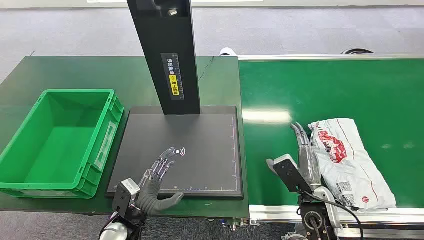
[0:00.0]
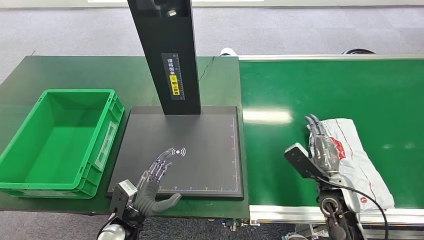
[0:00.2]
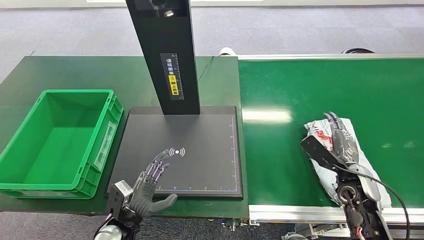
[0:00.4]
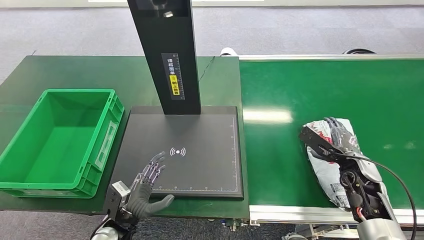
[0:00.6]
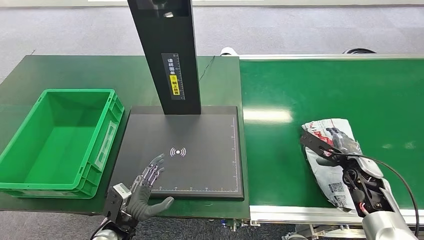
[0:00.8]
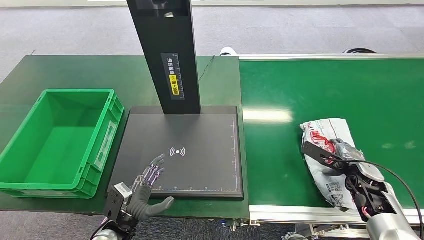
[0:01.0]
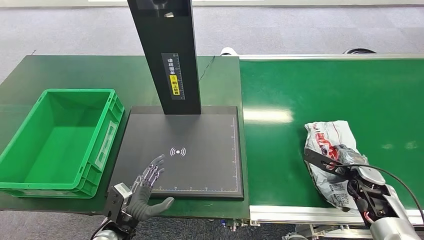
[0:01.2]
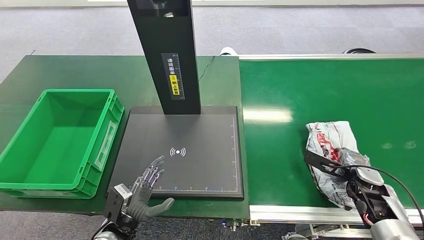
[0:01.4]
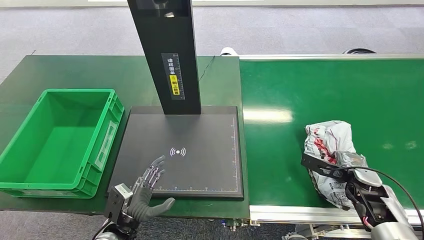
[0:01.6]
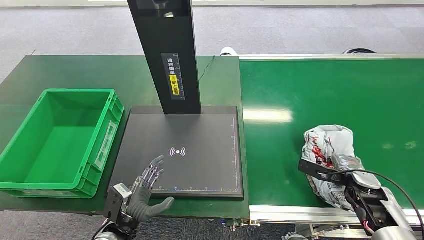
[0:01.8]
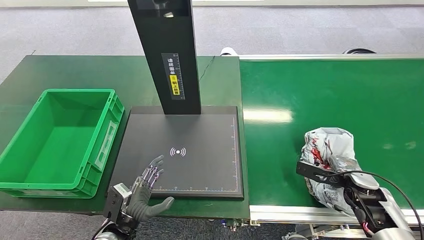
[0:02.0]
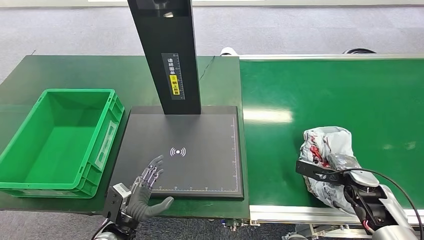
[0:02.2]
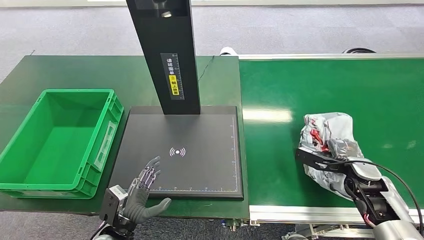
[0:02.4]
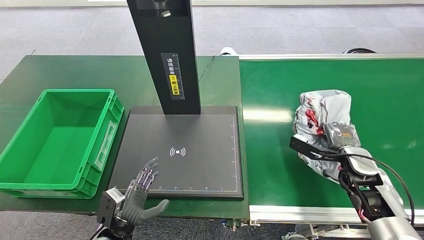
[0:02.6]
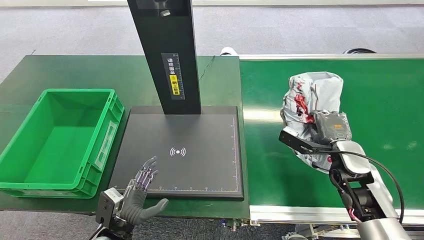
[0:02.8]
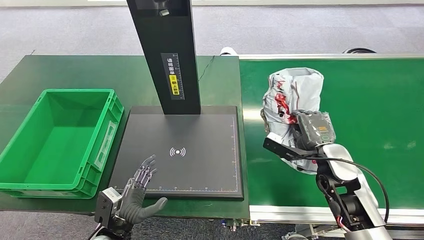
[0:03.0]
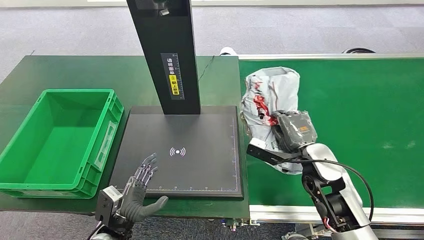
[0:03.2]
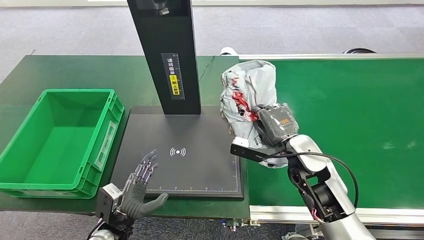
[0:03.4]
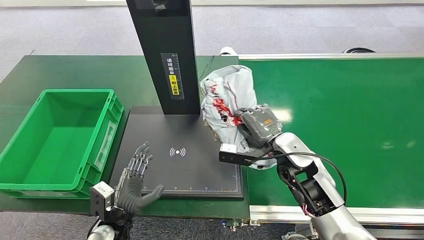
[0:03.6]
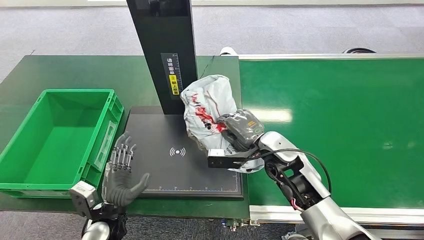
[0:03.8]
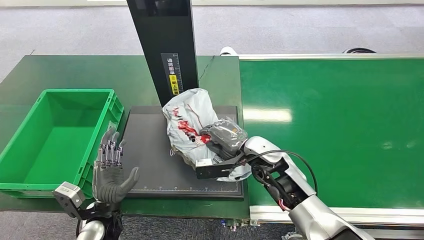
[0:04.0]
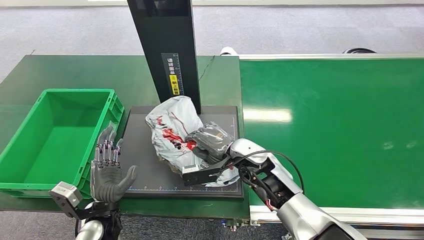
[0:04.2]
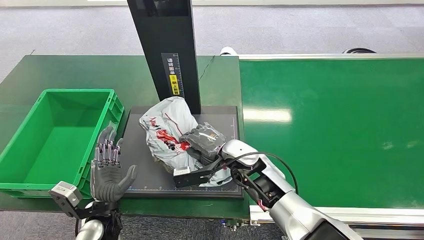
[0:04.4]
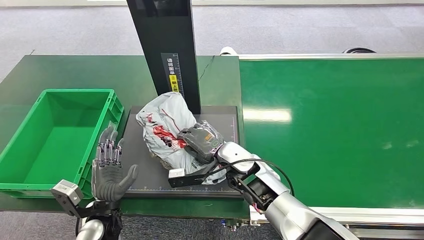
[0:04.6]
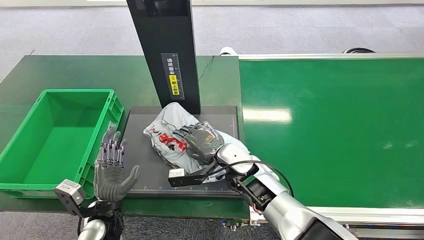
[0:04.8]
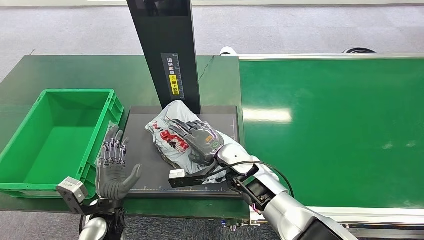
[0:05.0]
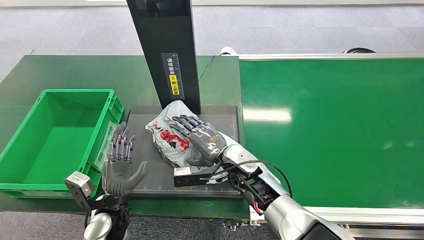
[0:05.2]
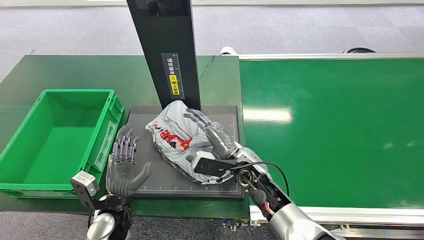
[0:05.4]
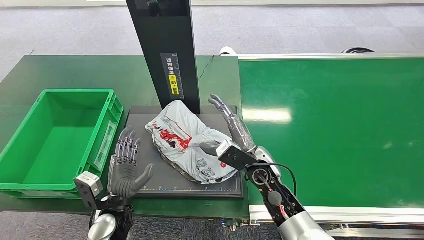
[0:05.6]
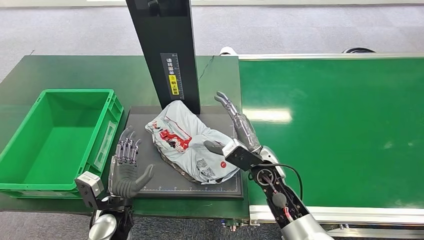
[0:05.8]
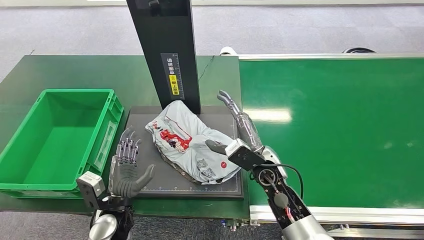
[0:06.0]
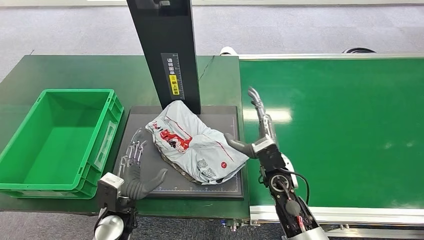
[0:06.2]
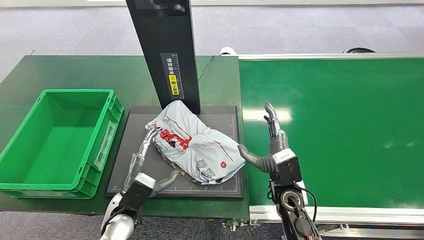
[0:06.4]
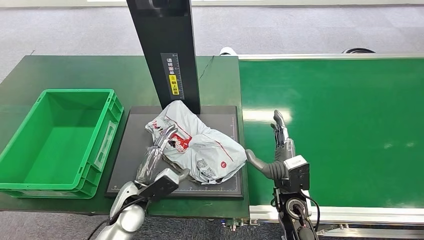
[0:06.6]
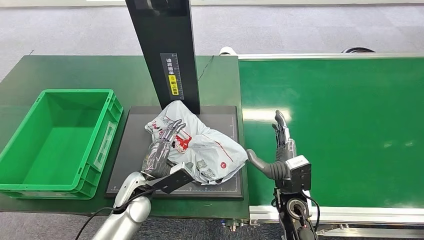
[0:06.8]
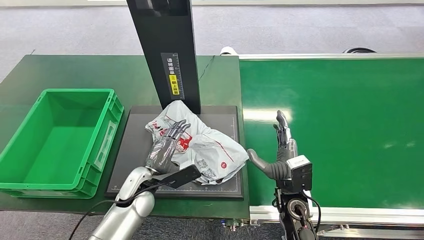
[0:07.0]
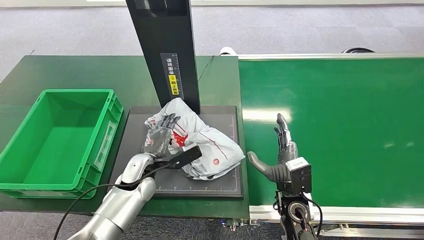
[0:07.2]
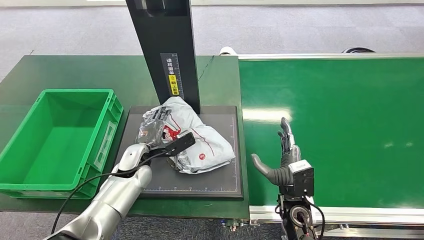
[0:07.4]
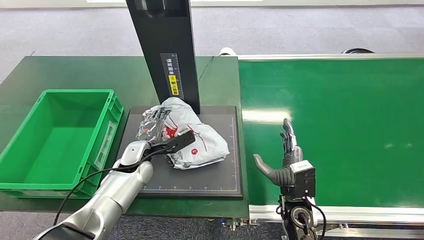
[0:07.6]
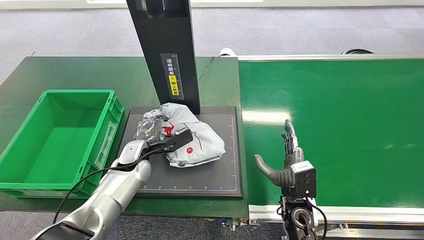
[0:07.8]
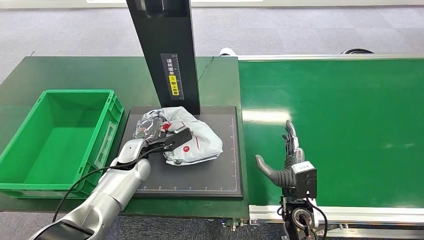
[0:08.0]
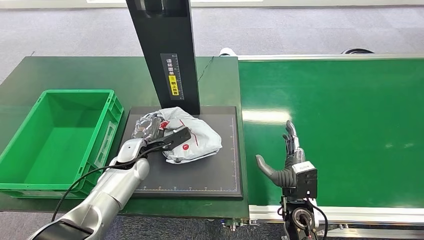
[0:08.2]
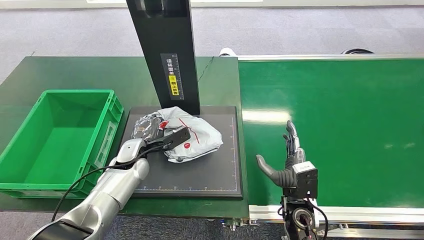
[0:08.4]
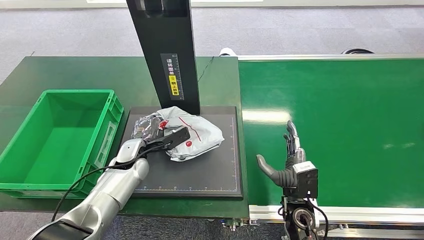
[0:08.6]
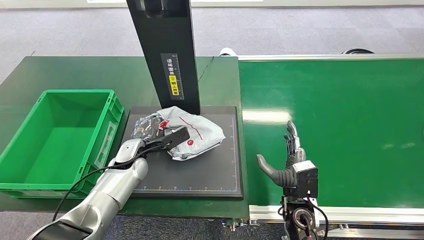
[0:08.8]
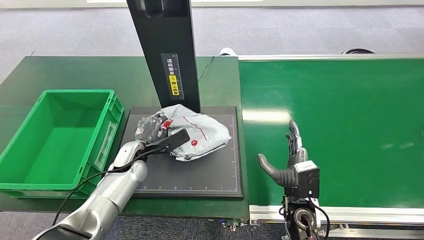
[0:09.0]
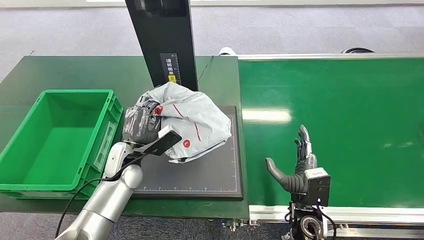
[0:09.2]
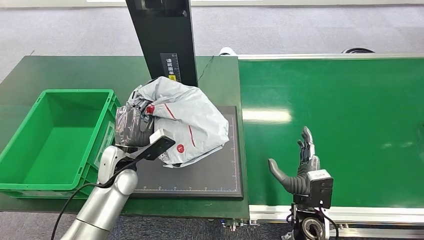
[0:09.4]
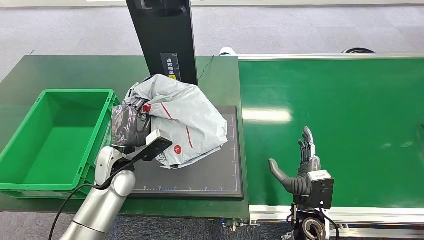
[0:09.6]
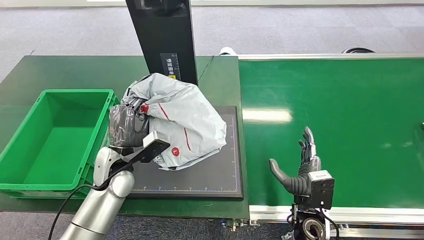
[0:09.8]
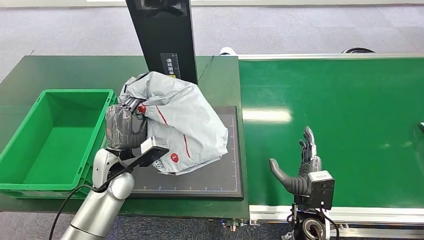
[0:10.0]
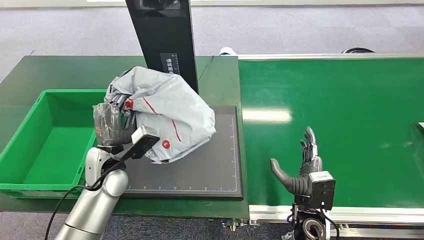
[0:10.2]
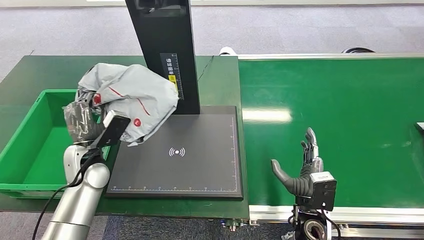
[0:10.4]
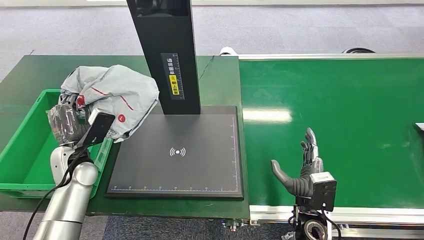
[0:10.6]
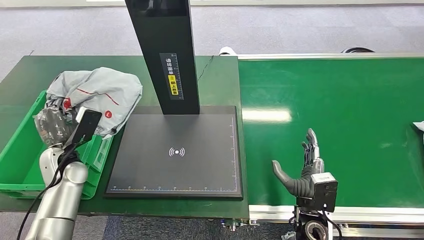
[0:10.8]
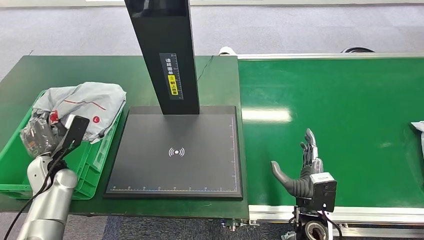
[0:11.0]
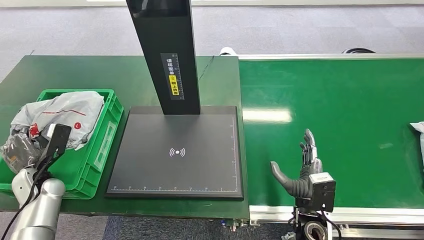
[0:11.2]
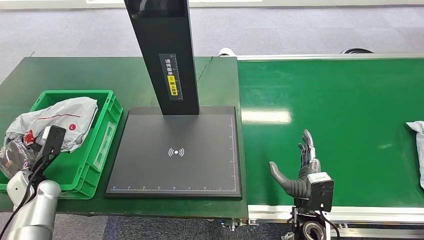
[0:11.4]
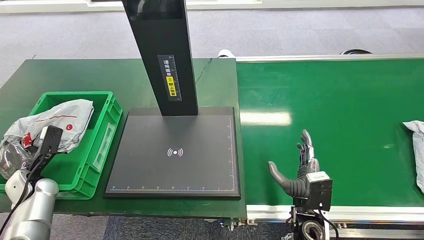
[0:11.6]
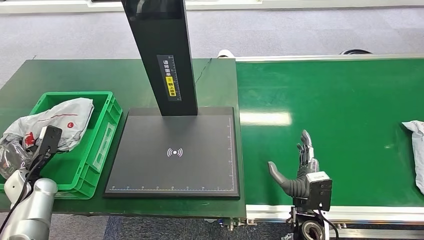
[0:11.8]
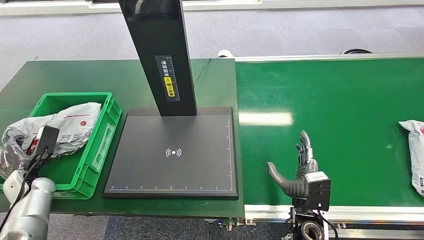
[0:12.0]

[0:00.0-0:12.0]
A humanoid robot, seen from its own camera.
Step, 0:00.0 to 0:02.4: Pick up the package from the conveyor belt.
Step, 0:02.8 to 0:06.0: Place the package onto the inbound machine.
Step, 0:06.2 to 0:10.0: Pick up the package from the inbound machine.
0:01.6 to 0:03.0: The right hand heads to the left and upward, covering about 15 cm.
0:04.4 to 0:06.0: The right hand goes roughly 5 cm to the right.
0:06.0 to 0:07.6: The left hand moves forward, approximately 15 cm. Meanwhile the right hand travels backward, to the right and downward by about 10 cm.
0:07.6 to 0:09.0: The hands make only small movements.

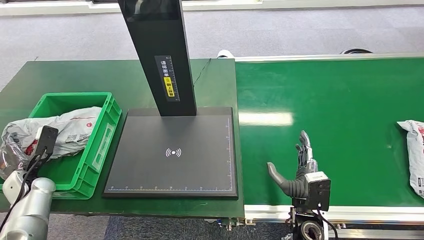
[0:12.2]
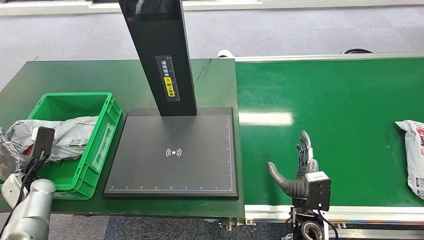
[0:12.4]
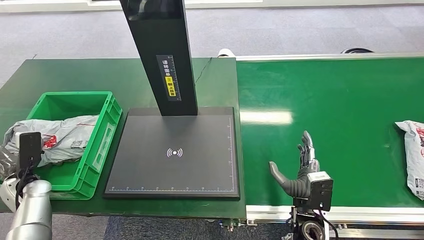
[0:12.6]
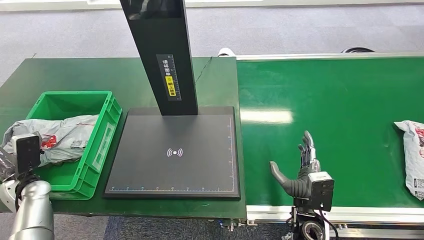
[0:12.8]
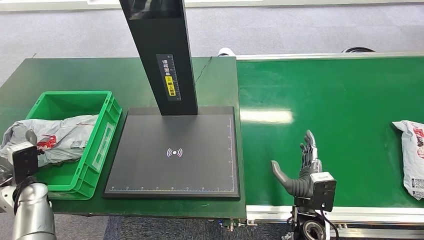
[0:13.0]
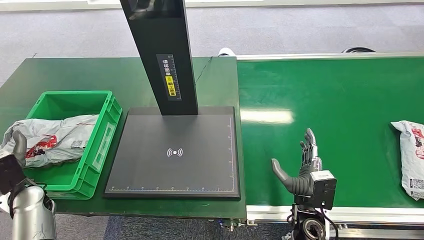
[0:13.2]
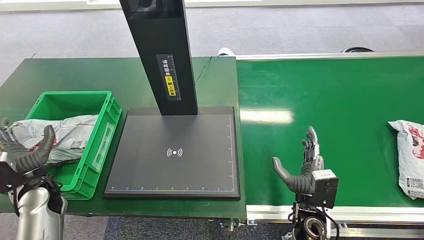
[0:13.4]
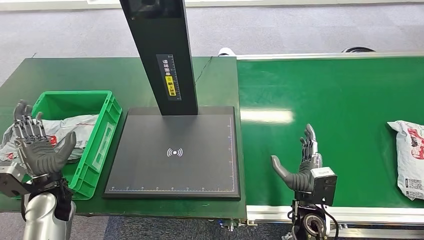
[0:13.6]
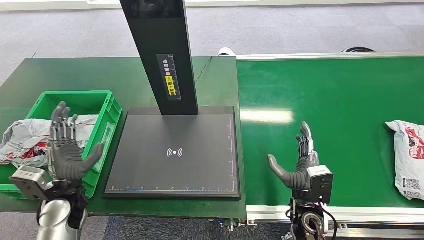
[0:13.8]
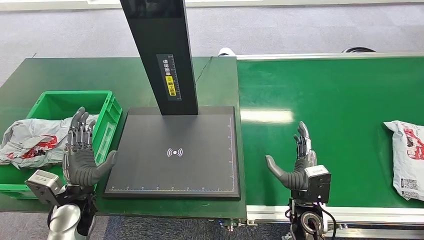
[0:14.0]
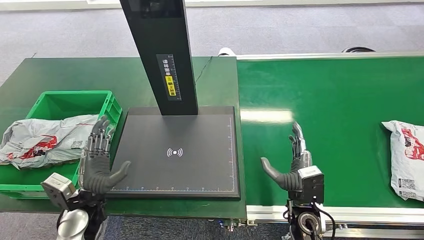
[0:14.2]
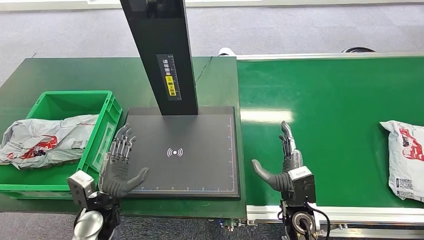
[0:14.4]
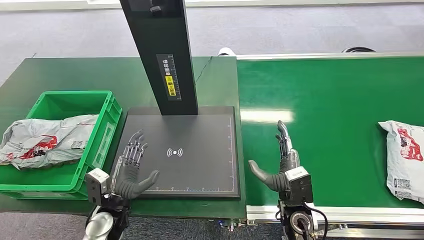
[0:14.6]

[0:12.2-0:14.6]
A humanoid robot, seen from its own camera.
Step, 0:12.2 to 0:14.4: Place the package into the parcel locker.
0:13.4 to 0:14.6: The left hand goes approximately 15 cm to the right.
